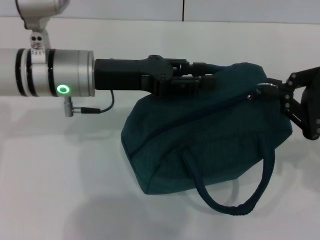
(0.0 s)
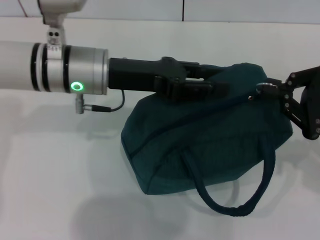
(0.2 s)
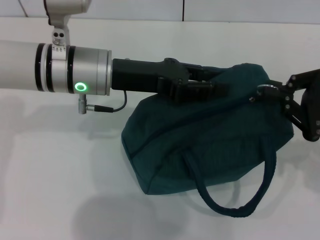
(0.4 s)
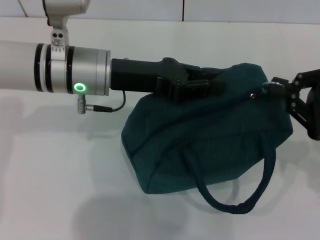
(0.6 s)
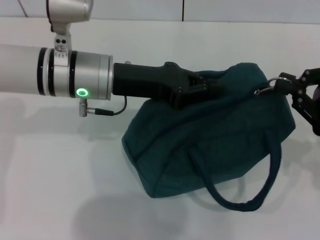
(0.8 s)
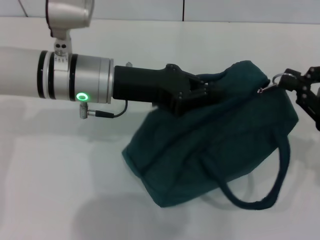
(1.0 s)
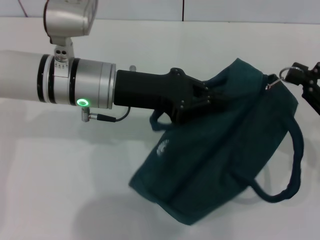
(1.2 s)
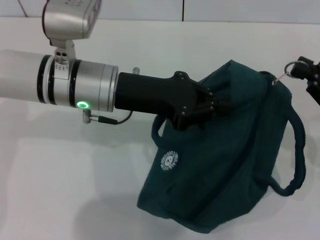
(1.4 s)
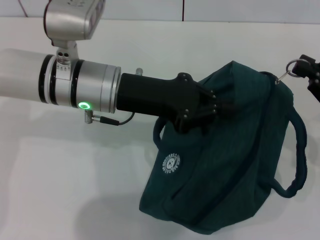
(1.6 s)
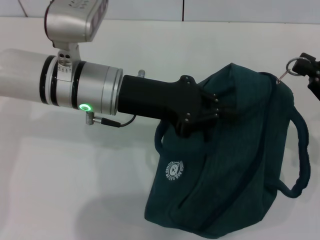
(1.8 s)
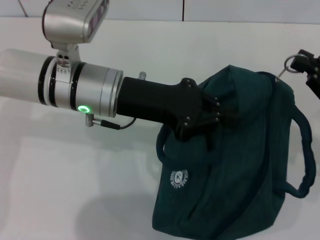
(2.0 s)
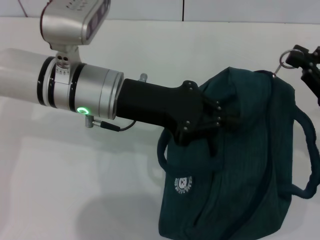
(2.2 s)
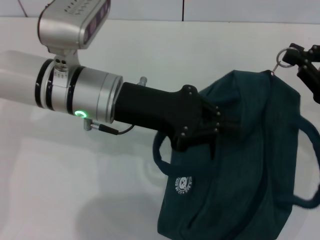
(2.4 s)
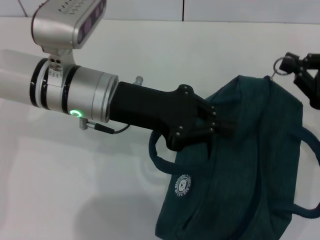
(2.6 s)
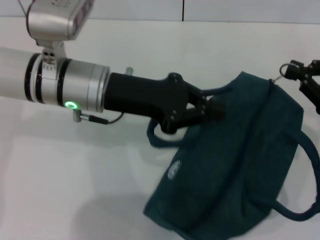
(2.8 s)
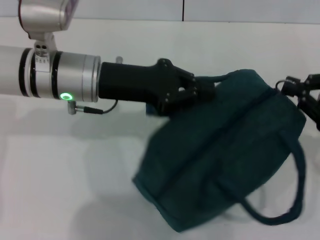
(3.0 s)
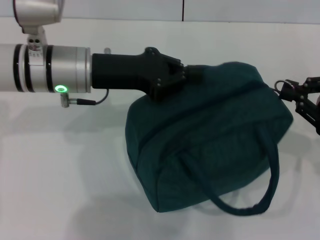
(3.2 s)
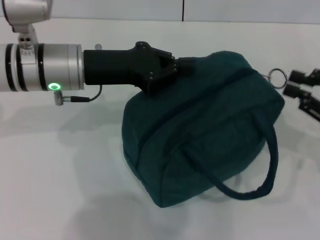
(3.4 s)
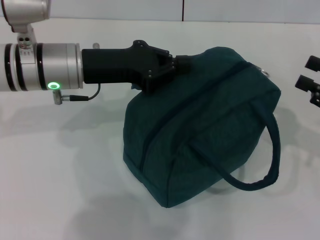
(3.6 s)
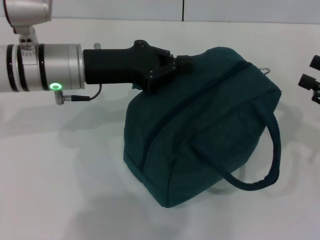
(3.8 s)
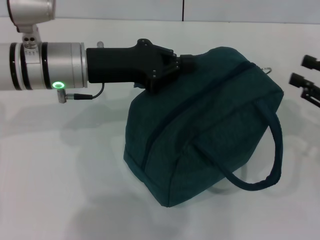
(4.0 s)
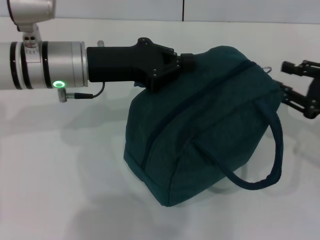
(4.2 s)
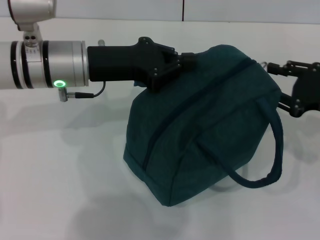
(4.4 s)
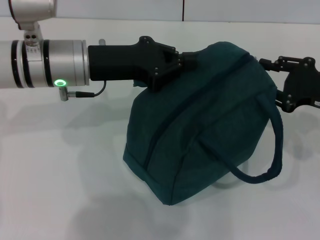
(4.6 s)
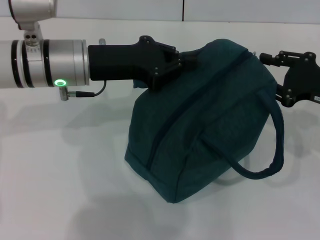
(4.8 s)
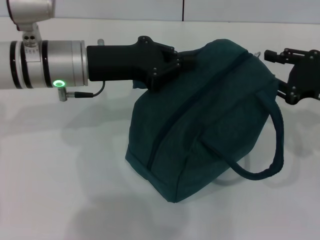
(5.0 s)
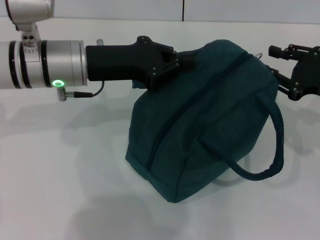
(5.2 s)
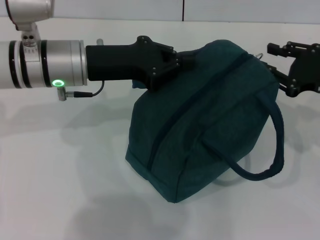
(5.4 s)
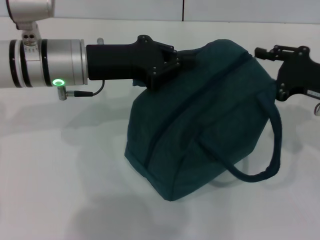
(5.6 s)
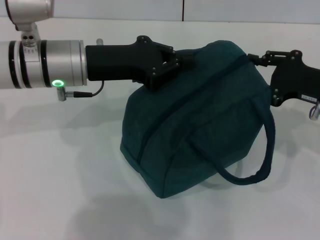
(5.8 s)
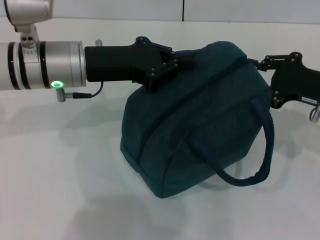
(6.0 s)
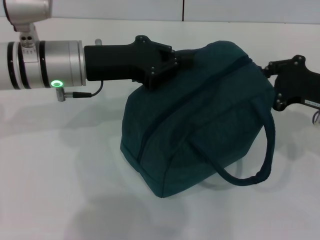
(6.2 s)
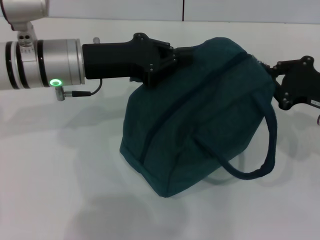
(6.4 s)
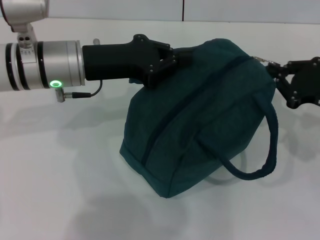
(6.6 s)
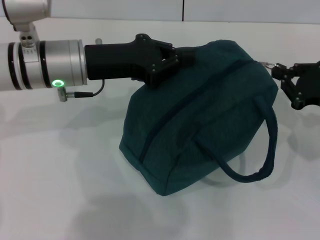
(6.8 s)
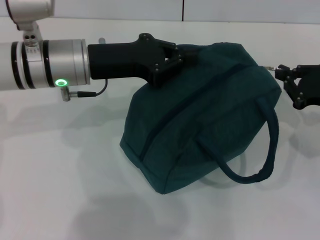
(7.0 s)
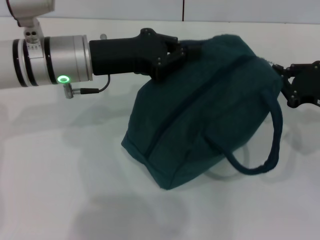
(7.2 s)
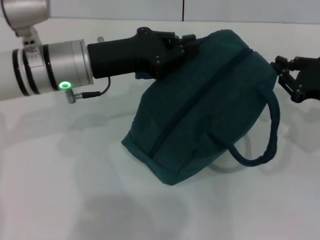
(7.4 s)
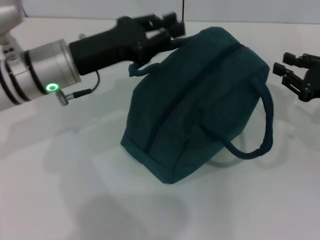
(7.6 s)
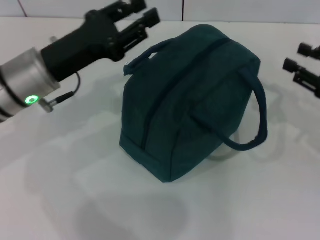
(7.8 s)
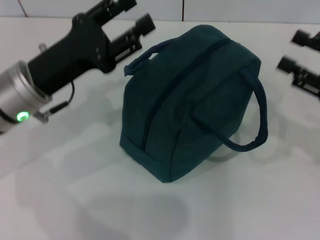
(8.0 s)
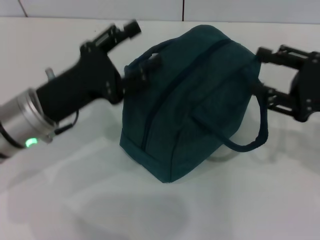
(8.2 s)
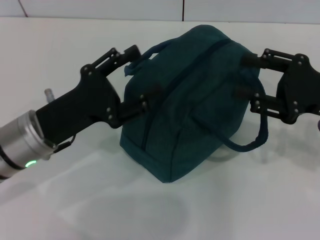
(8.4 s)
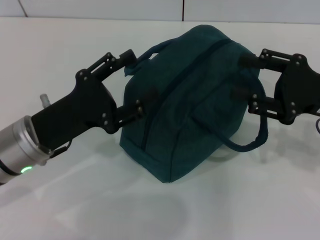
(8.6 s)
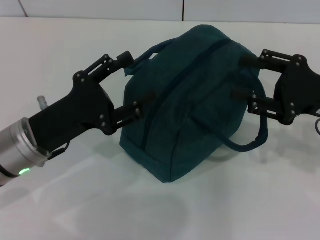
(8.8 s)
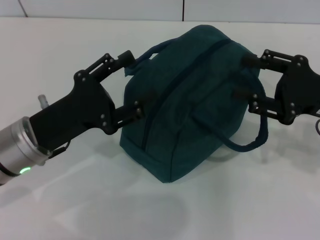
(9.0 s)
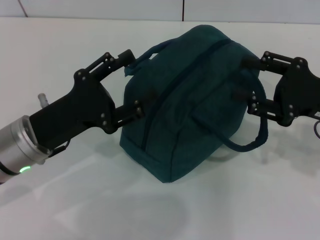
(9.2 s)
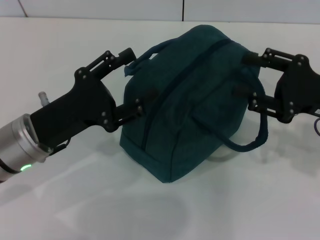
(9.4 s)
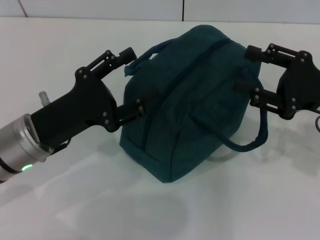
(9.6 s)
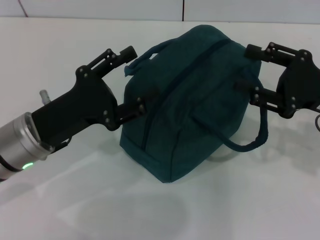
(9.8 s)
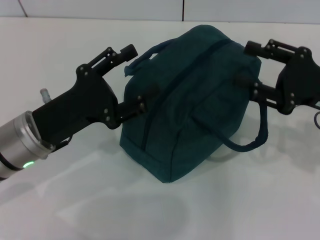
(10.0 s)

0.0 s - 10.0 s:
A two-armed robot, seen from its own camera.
Step, 0.0 s - 7.4 s: Zip up the lunch bag with your right hand.
Step, 7.6 s - 7.8 s: Hold the lunch bag with your left hand.
0.0 s - 1.4 s: The left gripper closes its fingers.
1.4 s - 2.8 s: There are only small adjustments of the grippers.
2.8 s - 4.2 s: The right gripper opens up.
4.2 s - 5.8 s: The right gripper changes place by about 5 cm.
5.8 s - 7.2 s: The grippers make only small movements.
7.2 s - 8.6 s: The left gripper moves backward and downward, roughly 15 cm, and opens up; the right gripper moves upward, some 5 cm, and opens up.
8.6 s - 10.0 s: The grippers make only small movements.
